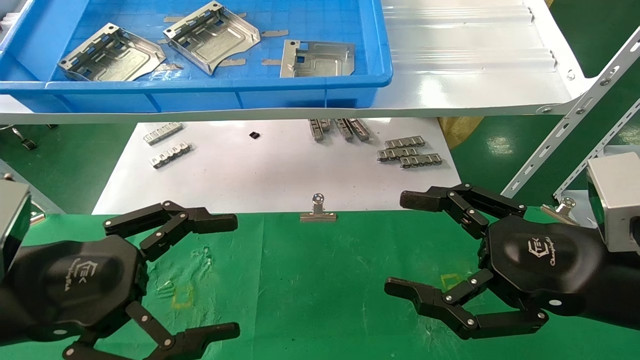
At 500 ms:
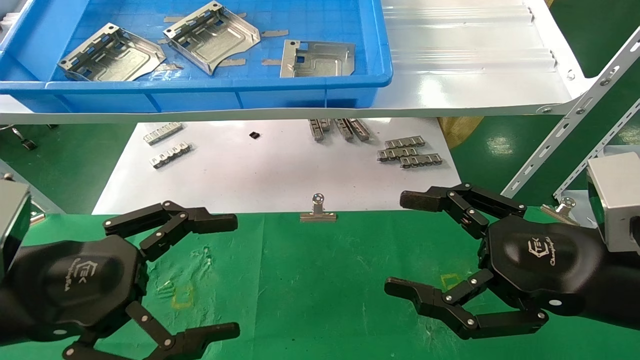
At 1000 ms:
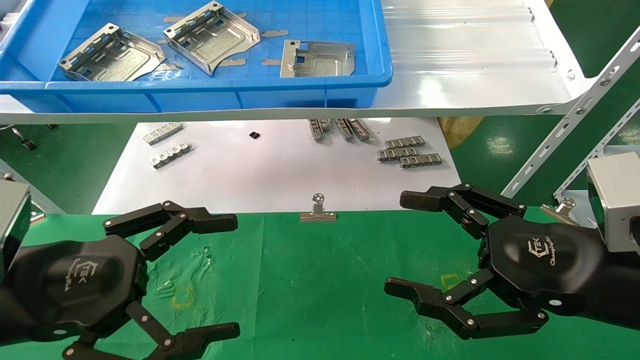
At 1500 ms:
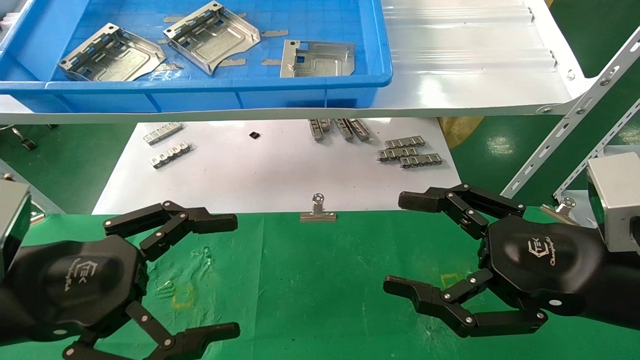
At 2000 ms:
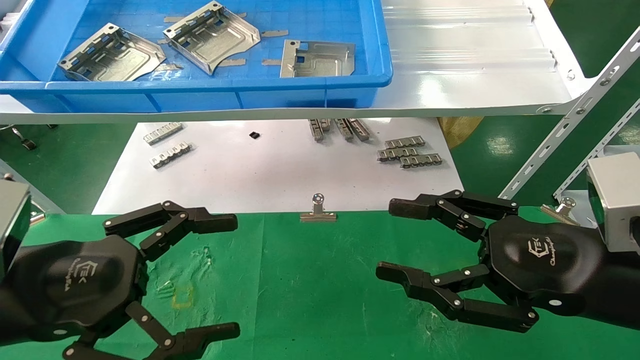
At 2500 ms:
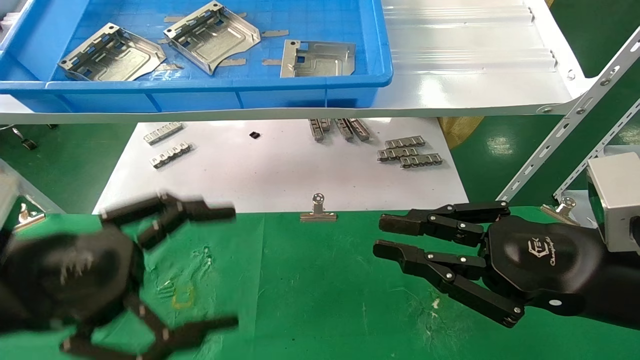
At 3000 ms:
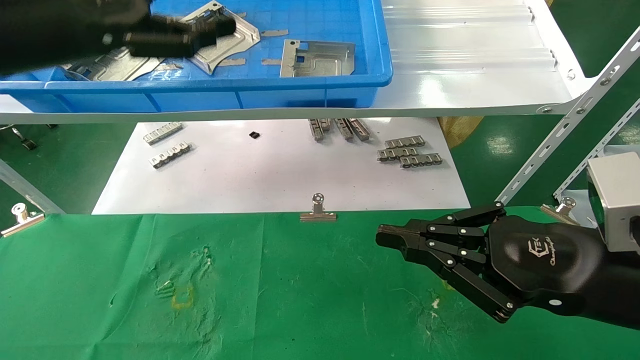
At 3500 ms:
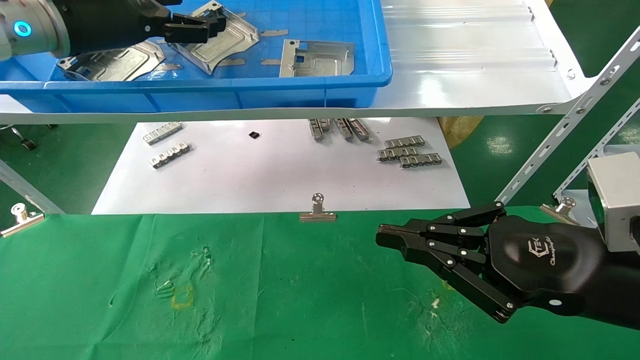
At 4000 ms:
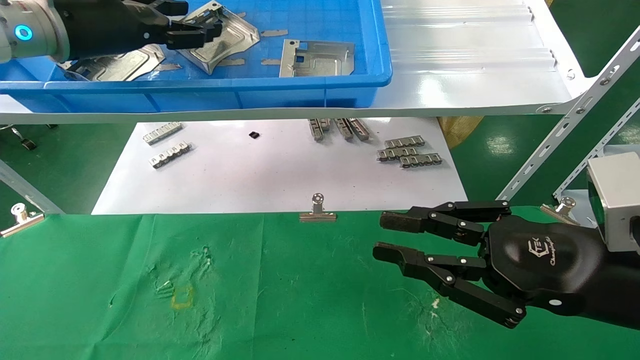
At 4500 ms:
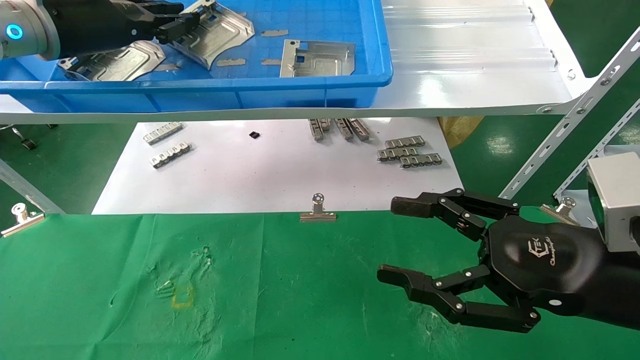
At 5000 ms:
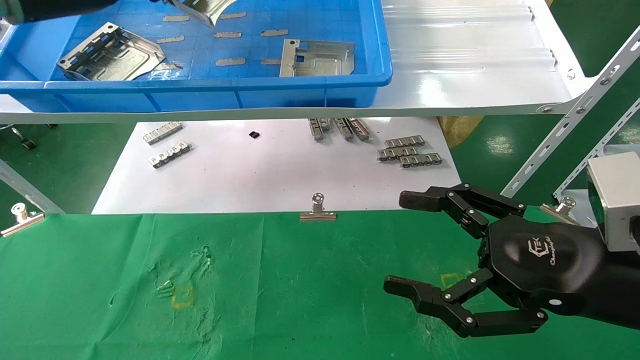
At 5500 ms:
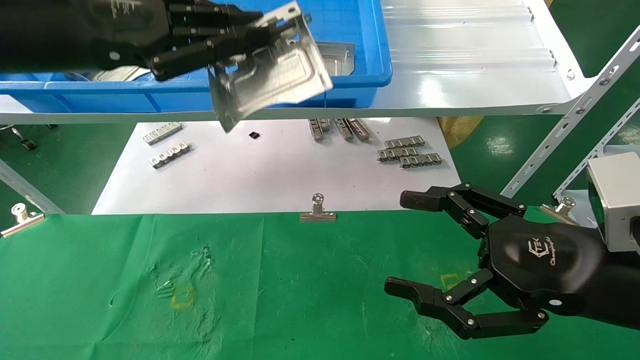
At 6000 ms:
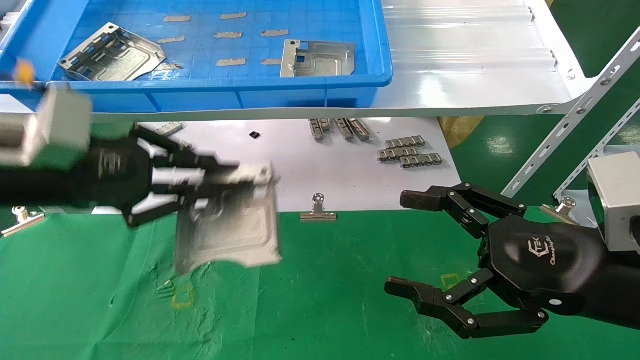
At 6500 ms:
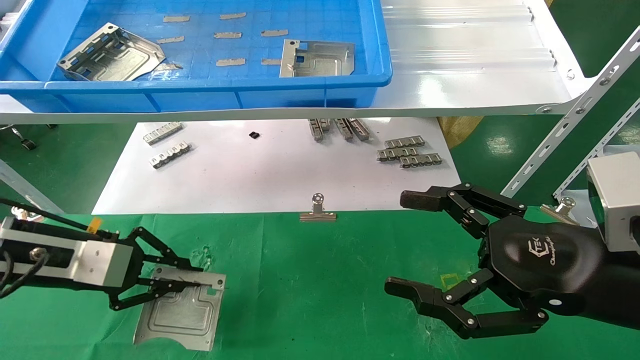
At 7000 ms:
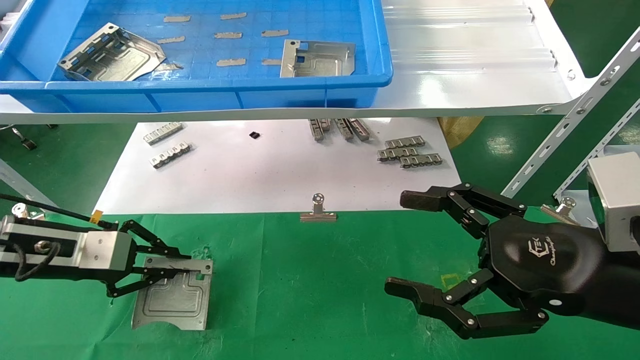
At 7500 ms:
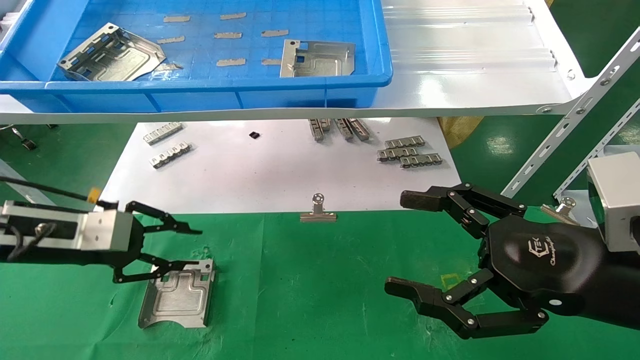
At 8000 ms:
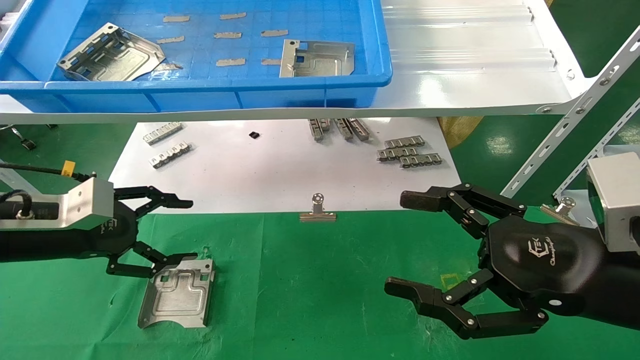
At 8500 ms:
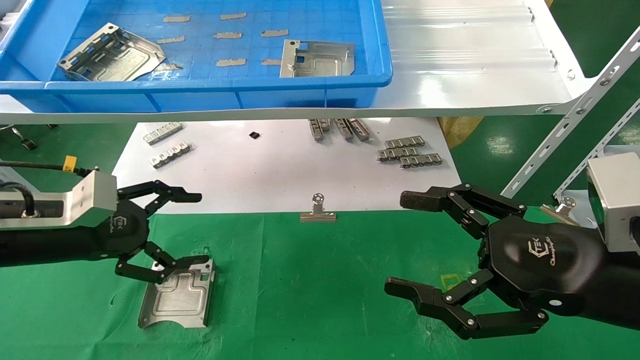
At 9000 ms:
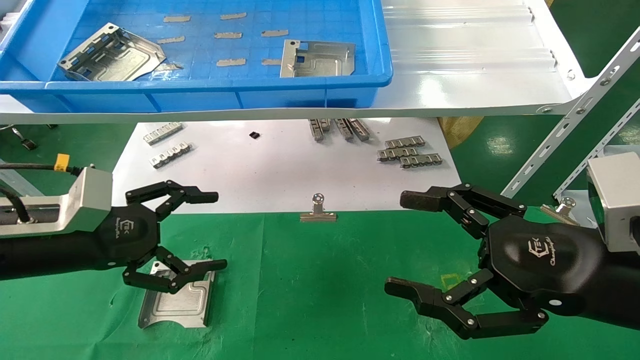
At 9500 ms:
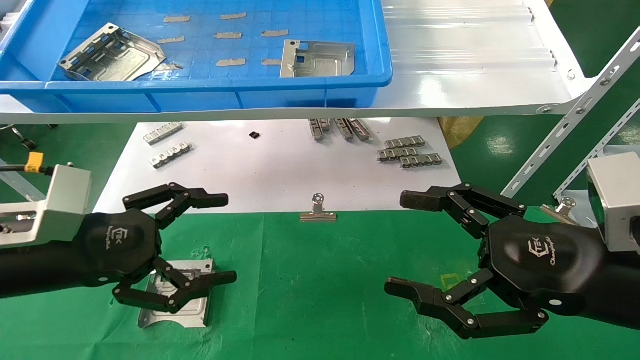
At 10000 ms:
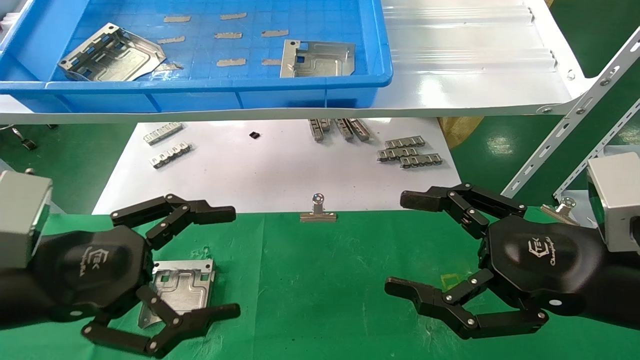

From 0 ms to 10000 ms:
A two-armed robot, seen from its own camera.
Task of the whole recording: use the mechanical arm to pick up the parts and place them on the table.
Step, from 3000 ms to 4500 ms: Pick up the hard drive bracket from the feeding area.
Step, from 5000 ms to 7000 ms: Place the hard drive bracket into the box.
From 0 ms to 2000 ms: The two grippers keep their place.
From 2000 ms to 4000 ms: The right gripper closes its fingers. The left gripper moves forward and upward, some 30 cm.
From 4000 ms to 6000 ms: The right gripper opens up, while the left gripper heads downward and backward, covering roughly 20 cm, and closes its fingers.
From 6000 ms to 8000 ms: The left gripper goes approximately 10 cm downward and to the left, and opens.
From 8000 ms to 10000 ms: The left gripper is displaced backward and to the right by approximately 15 cm, and opens its fingers.

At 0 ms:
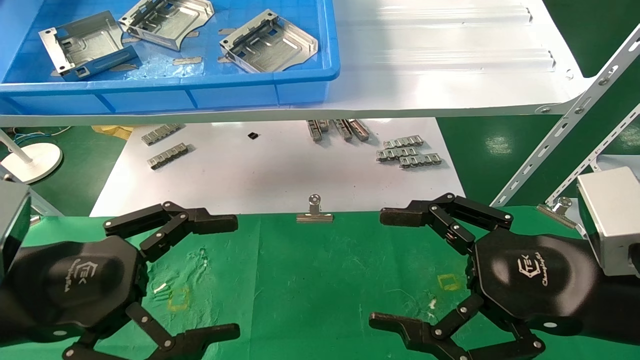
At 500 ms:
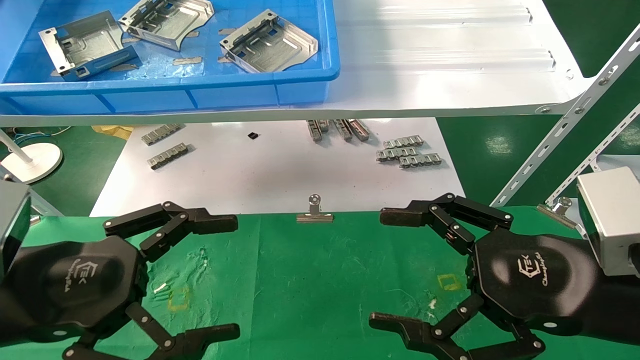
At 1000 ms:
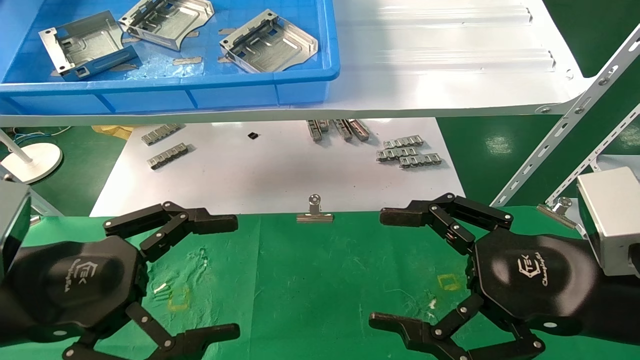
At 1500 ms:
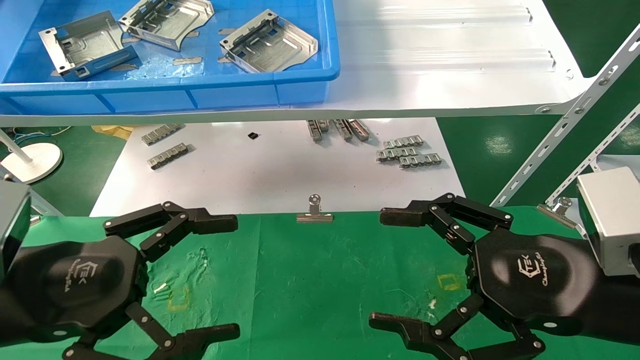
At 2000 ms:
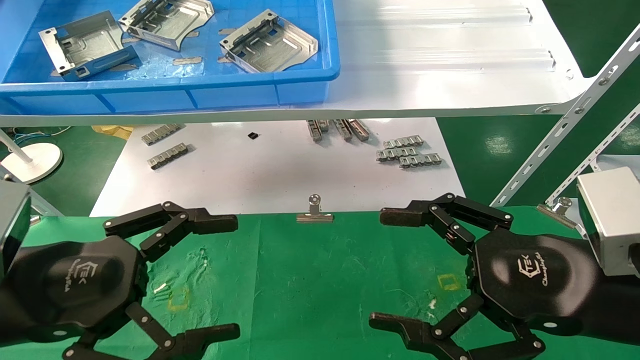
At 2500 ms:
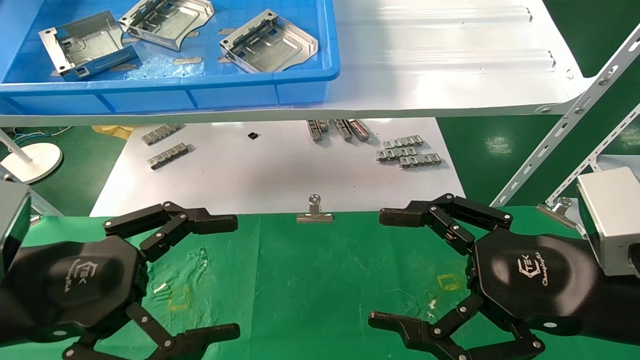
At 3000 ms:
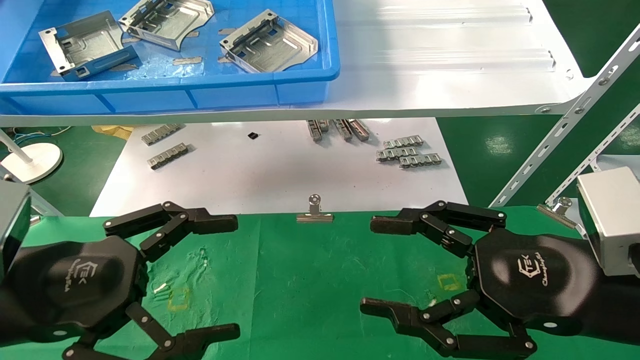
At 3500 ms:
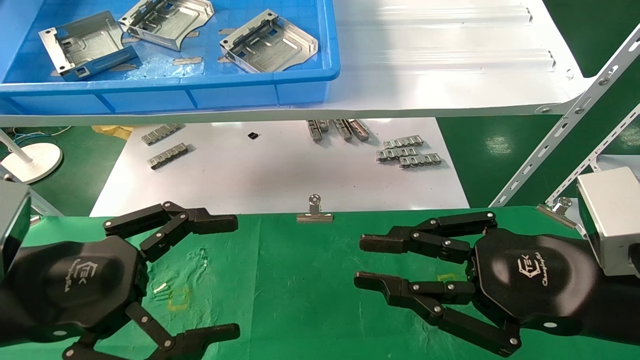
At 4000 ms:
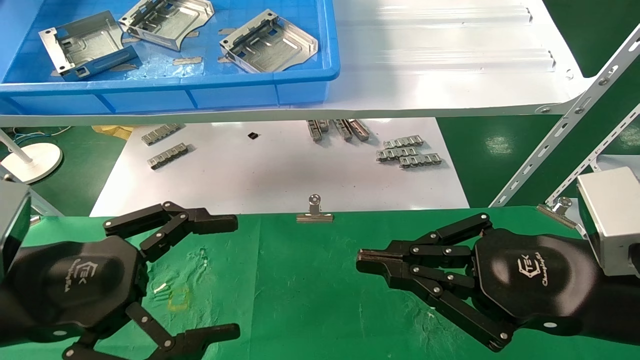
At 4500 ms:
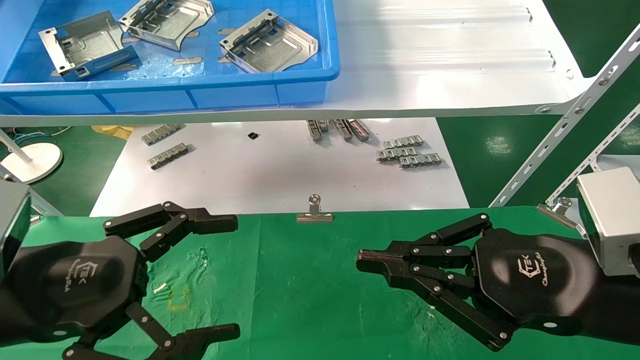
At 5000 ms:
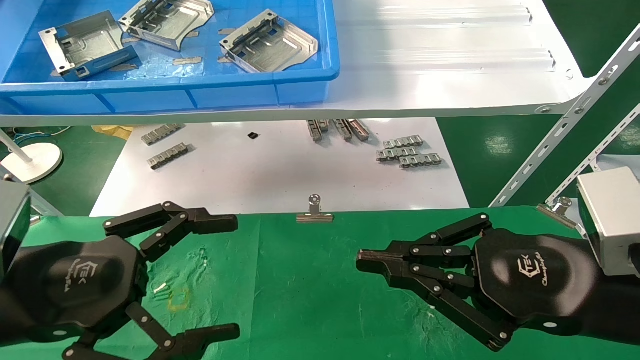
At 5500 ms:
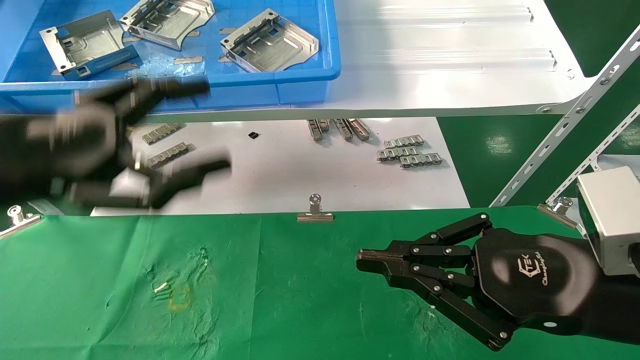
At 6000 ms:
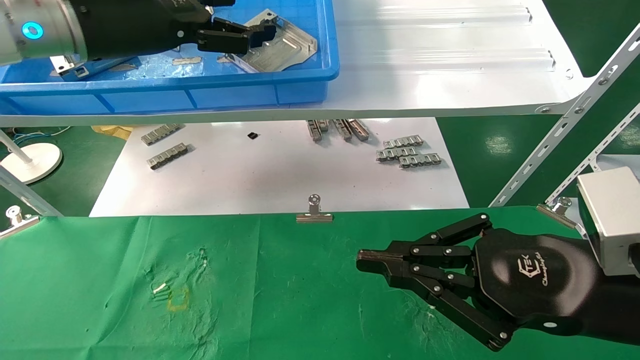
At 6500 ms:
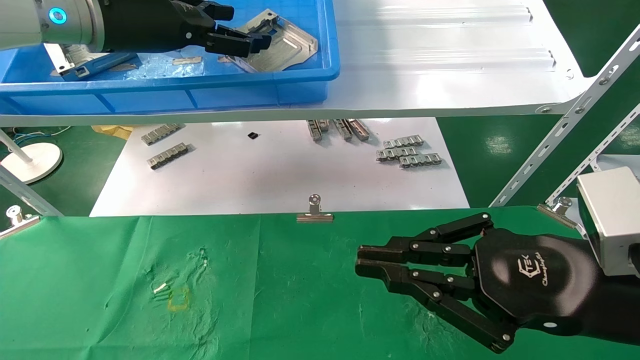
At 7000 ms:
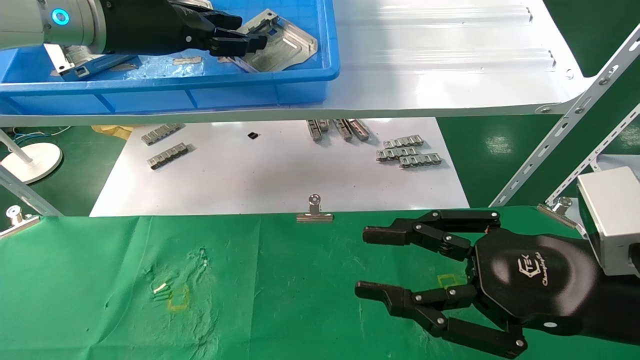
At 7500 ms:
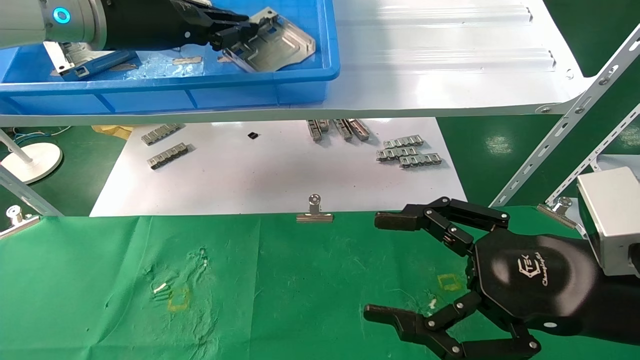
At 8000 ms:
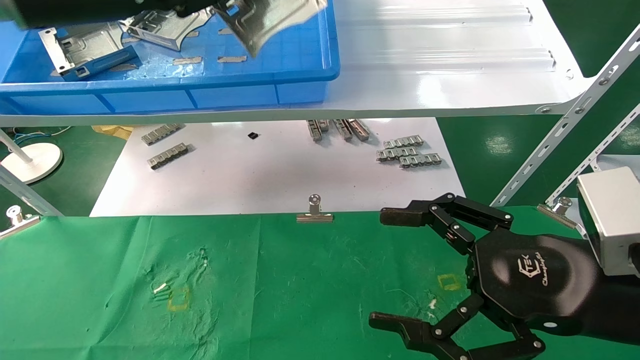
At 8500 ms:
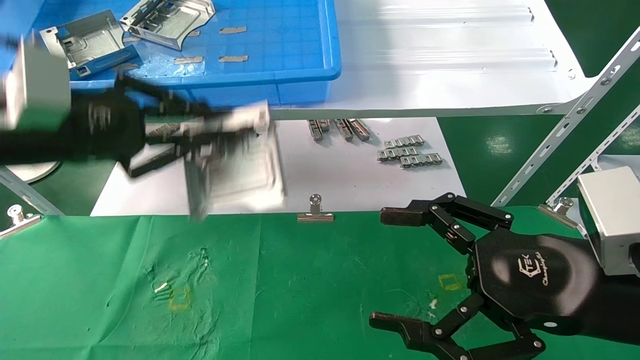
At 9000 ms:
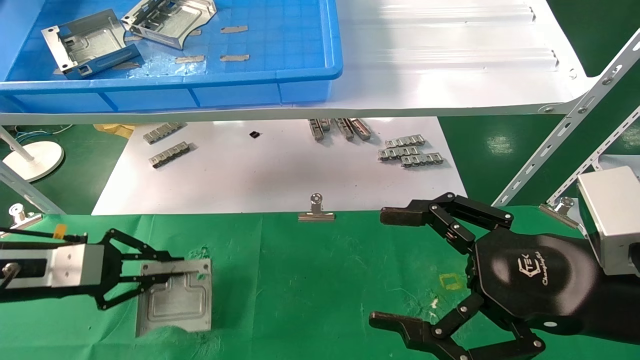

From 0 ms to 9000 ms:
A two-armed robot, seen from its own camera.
Task of the whole recording: use the mechanical arm to pick up the parts and place them on the table.
Step, from 5500 ms to 7500 ms: Pick up the hard drive bracket from the feeding area.
From 0 ms to 2000 ms: Both grippers stay about where they are.
From 2000 ms to 4500 ms: The right gripper closes its fingers.
From 4500 ms to 7000 ms: The left gripper moves upward and forward, about 30 cm, and closes its fingers.
From 7000 ms to 9000 ms: The right gripper opens its fingers. Meanwhile the left gripper travels downward and to the left by about 30 cm, and closes its fingers.

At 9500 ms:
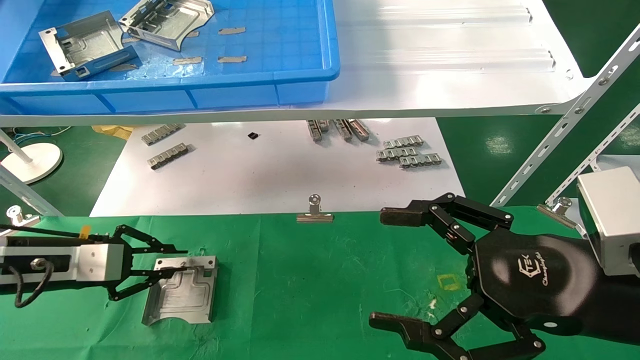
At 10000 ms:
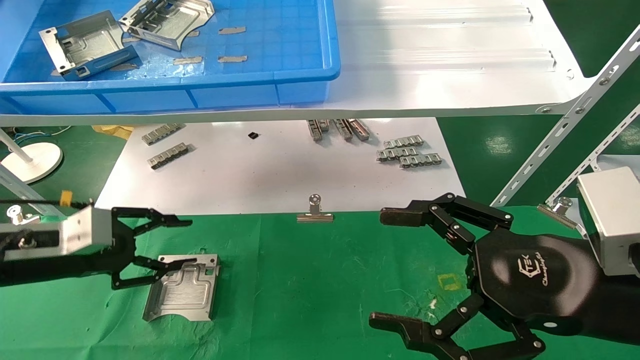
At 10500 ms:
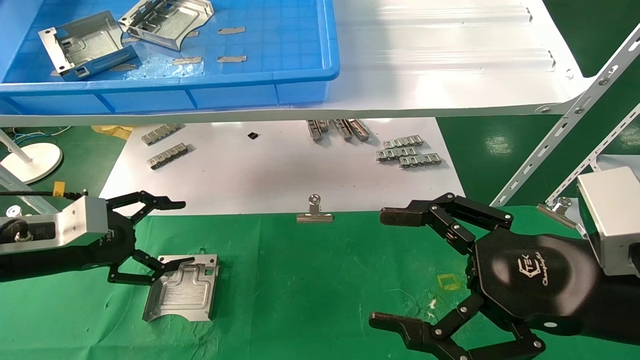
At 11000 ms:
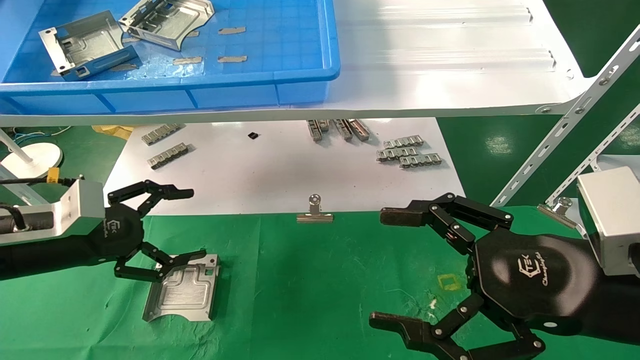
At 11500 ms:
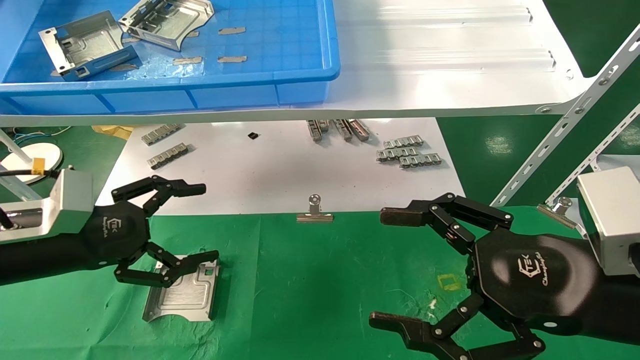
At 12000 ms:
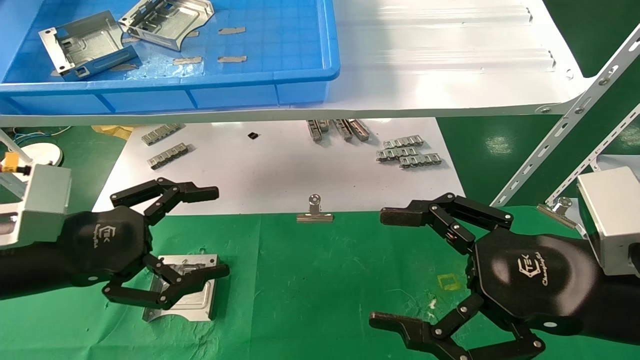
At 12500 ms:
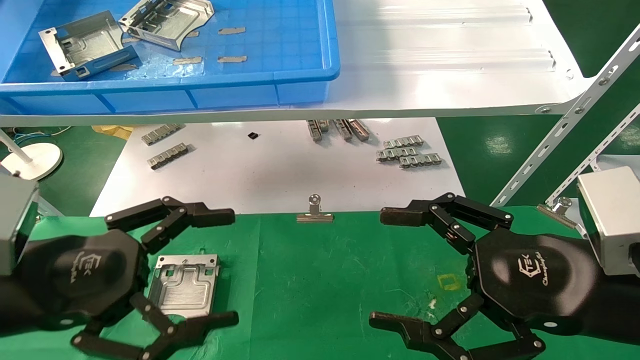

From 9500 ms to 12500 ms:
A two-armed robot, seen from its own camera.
Task of the whole recording: use the mechanical arm to pick up the parts and place them on the table.
From 9500 ms to 11000 ms: The left gripper opens.
From 11000 ms to 12500 ms: The left gripper shifts roughly 15 cm backward and to the right.
